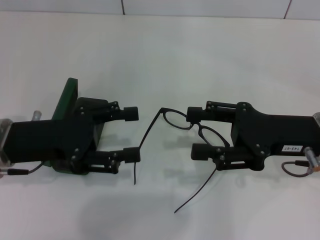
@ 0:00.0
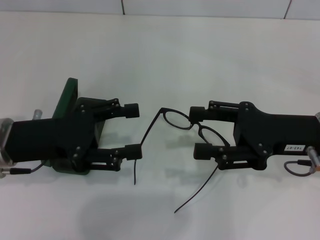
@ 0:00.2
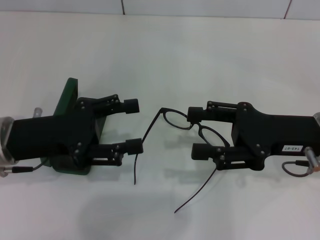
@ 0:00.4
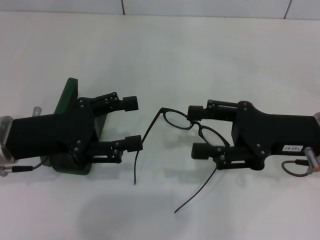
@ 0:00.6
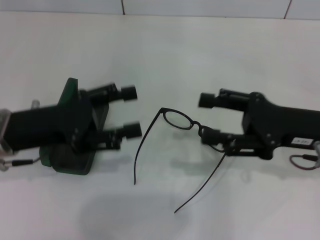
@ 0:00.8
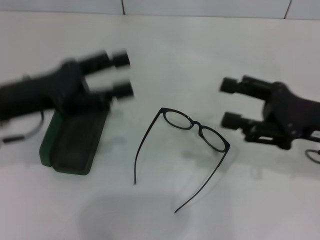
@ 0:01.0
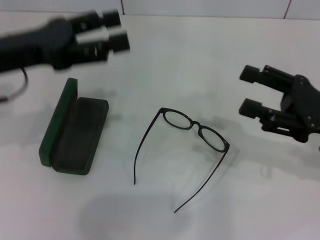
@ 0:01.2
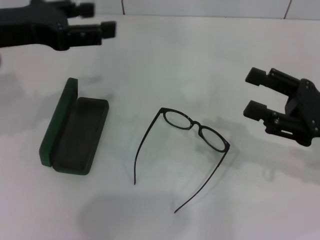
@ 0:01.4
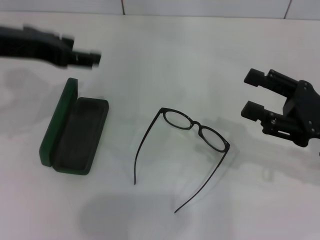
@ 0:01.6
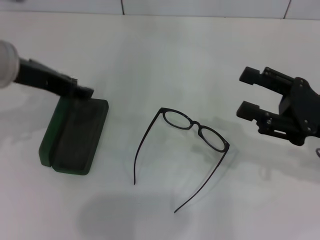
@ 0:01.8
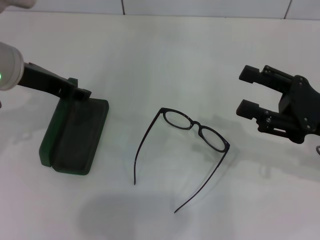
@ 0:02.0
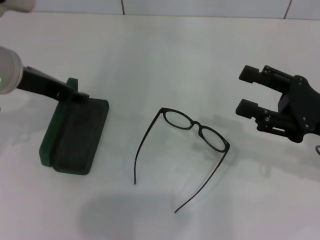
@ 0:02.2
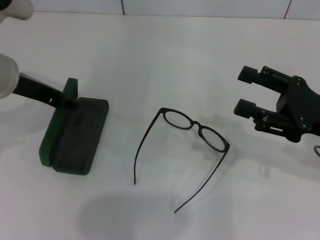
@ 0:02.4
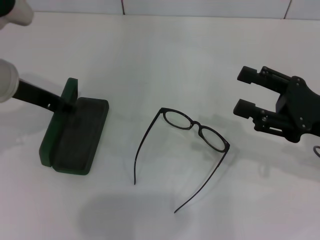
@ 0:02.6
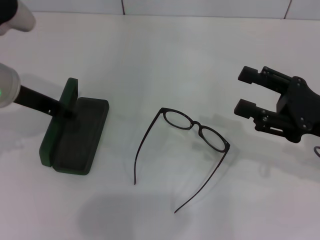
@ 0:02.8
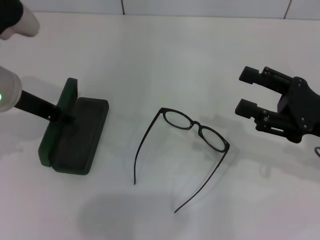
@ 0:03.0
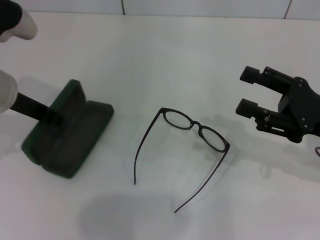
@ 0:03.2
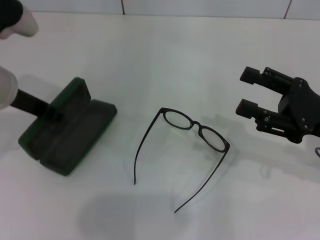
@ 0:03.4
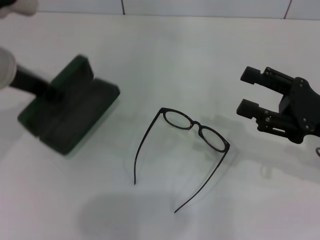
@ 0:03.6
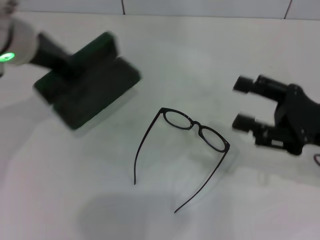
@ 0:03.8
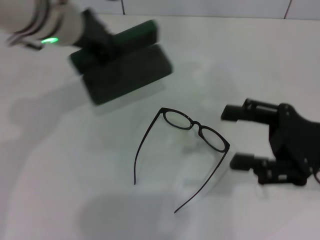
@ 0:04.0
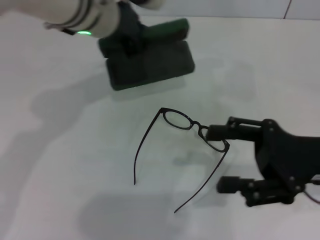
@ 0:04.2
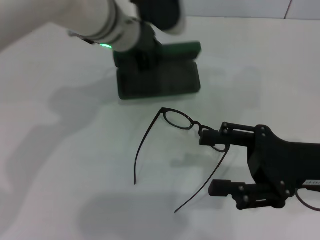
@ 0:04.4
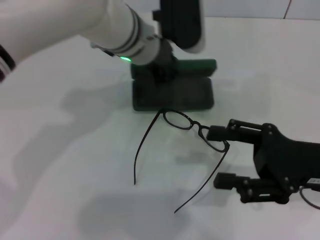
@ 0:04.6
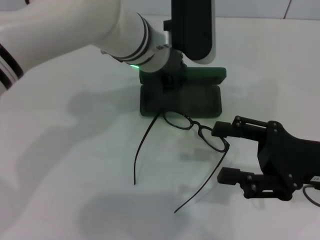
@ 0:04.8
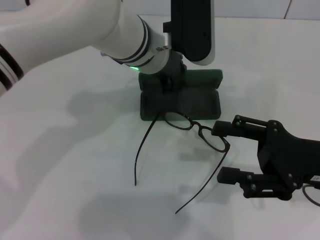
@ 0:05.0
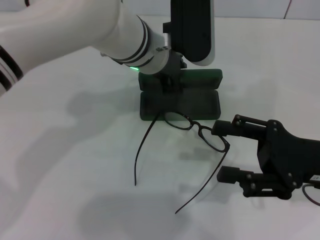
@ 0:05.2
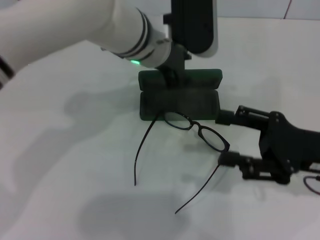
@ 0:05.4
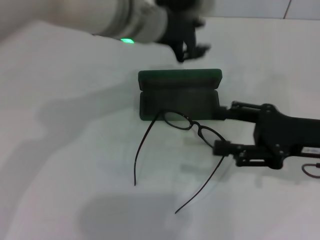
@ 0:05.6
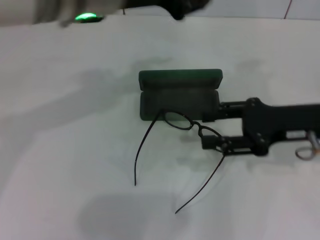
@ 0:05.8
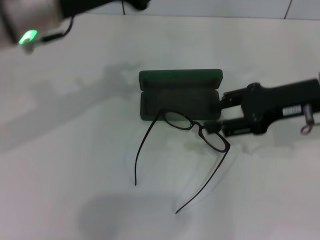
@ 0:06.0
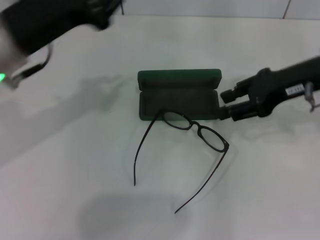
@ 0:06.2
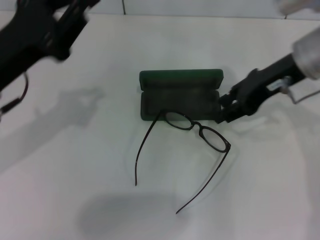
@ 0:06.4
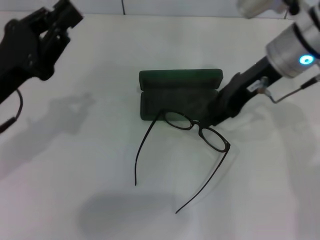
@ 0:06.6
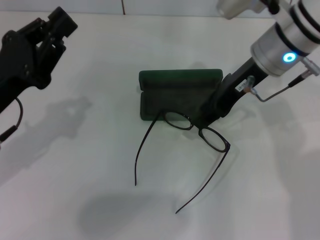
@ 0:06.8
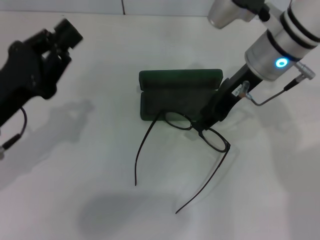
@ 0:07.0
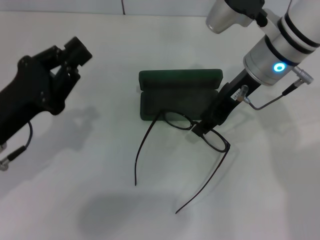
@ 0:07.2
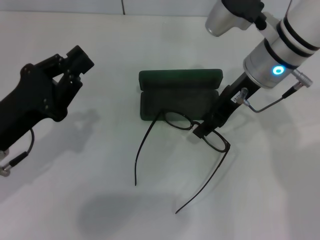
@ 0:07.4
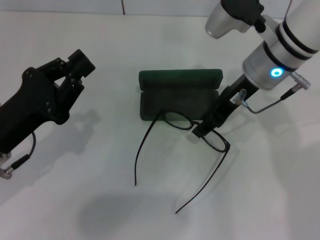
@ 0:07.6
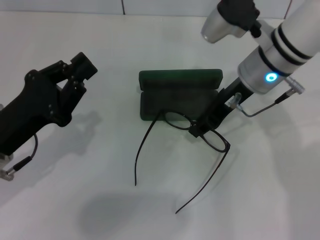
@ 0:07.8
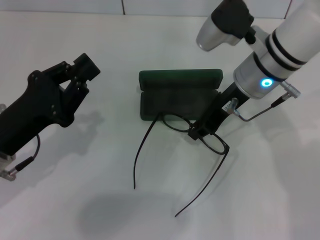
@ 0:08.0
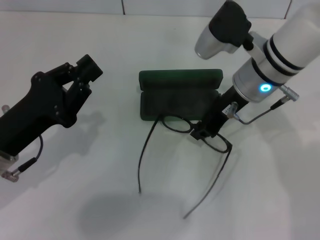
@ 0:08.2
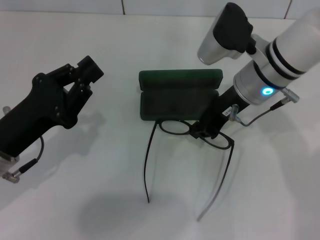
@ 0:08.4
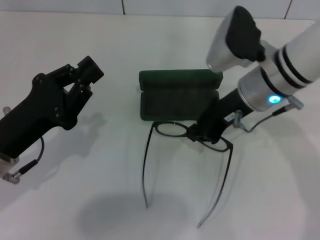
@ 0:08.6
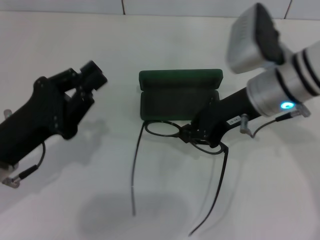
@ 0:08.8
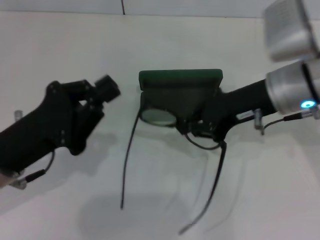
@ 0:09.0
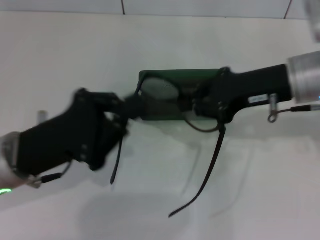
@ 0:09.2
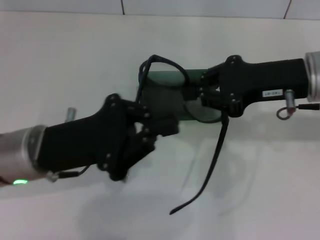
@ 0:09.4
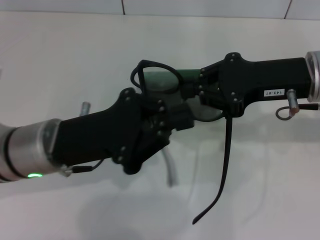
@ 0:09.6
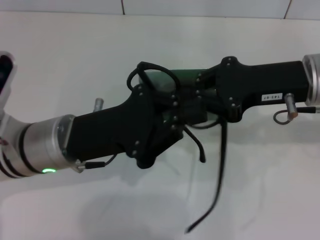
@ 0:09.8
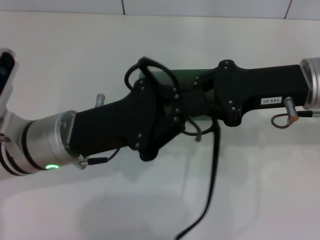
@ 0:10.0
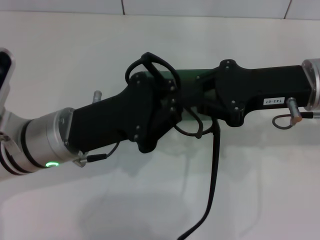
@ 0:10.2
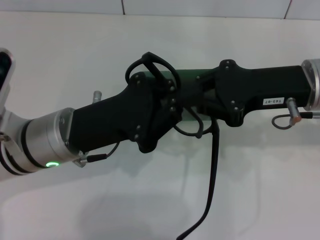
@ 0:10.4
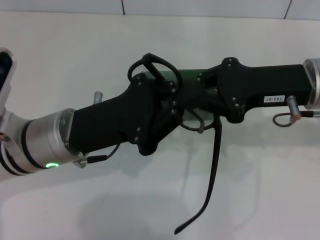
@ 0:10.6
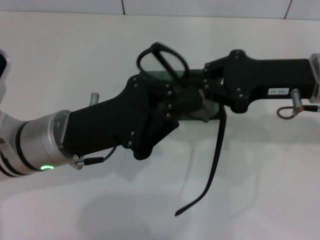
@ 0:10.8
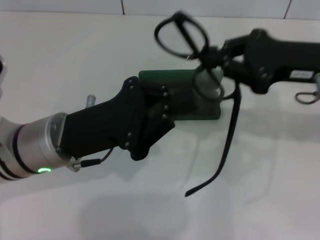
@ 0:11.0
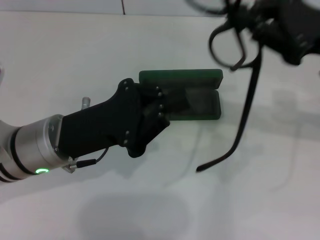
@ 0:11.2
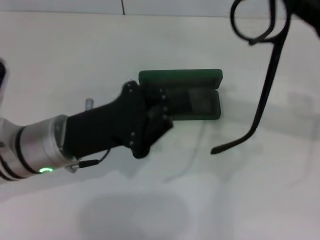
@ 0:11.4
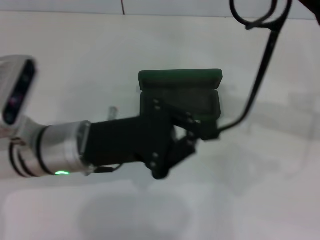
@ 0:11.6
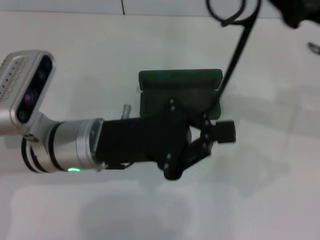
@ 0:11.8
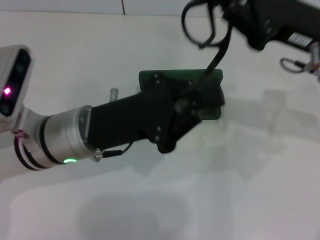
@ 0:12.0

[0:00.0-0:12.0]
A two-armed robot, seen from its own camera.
Step, 0:00.0 to 0:03.0: Grab the glasses case with your left hand.
Step, 0:03.2 to 0:05.2: Place the glasses case in the center of the table with your left hand.
Step, 0:05.4 to 0:08.2: Grab the eyeglass frame with your right hand.
0:00.0 to 0:01.6: The right gripper goes approximately 5 cm to the right, while the left gripper heads upward and forward, covering some 15 cm.
0:01.6 to 0:03.0: The left gripper is displaced downward by some 5 cm.
0:03.0 to 0:04.4: The left gripper shifts about 15 cm to the right and forward, and closes.
0:04.4 to 0:06.0: The left gripper moves to the left, backward and upward, approximately 15 cm. Meanwhile the right gripper is displaced forward and upward by about 10 cm.
0:06.0 to 0:07.6: The right gripper shifts about 10 cm to the left and forward, and closes, while the left gripper shifts about 20 cm downward, backward and to the left.
0:07.6 to 0:09.0: The right gripper shifts approximately 5 cm backward, and closes its fingers.
0:09.0 to 0:10.4: The left gripper shifts about 5 cm to the right.

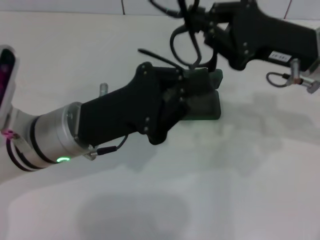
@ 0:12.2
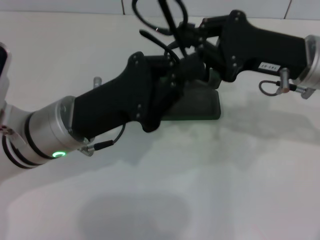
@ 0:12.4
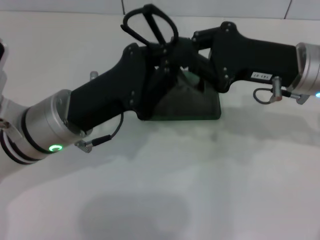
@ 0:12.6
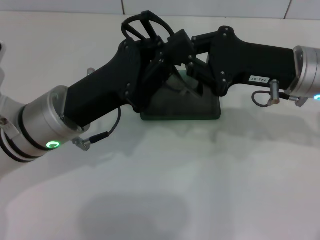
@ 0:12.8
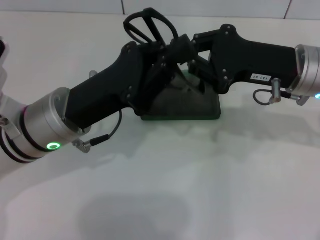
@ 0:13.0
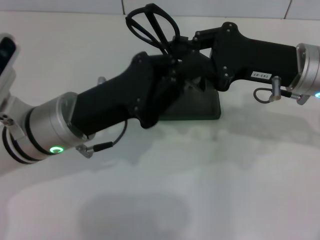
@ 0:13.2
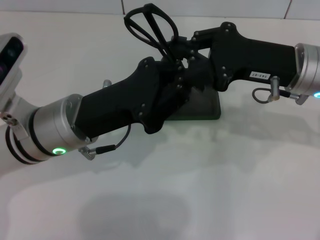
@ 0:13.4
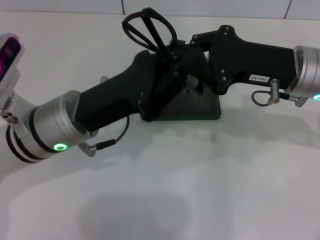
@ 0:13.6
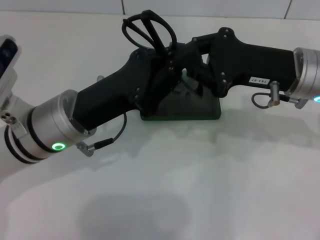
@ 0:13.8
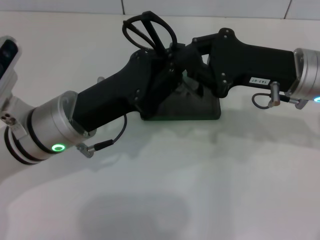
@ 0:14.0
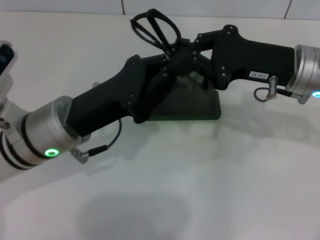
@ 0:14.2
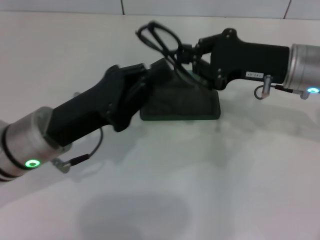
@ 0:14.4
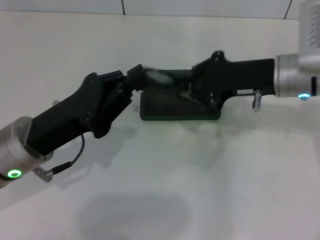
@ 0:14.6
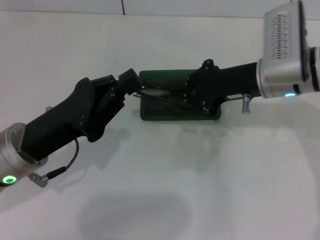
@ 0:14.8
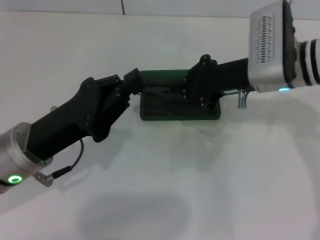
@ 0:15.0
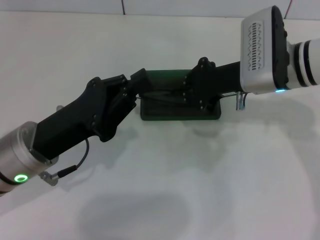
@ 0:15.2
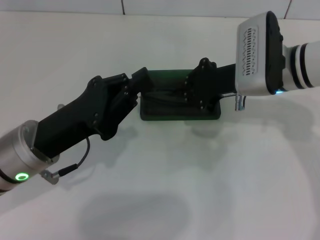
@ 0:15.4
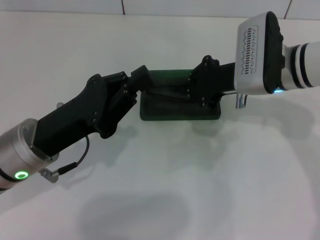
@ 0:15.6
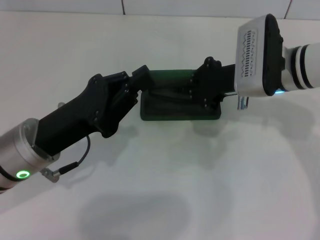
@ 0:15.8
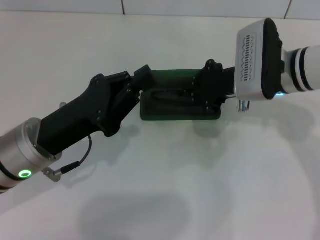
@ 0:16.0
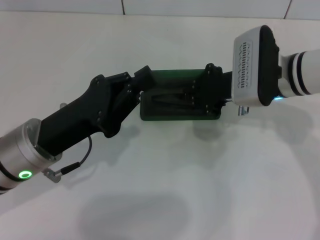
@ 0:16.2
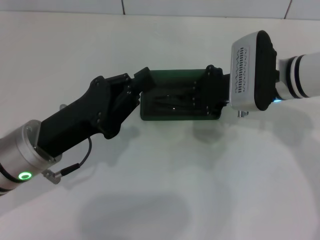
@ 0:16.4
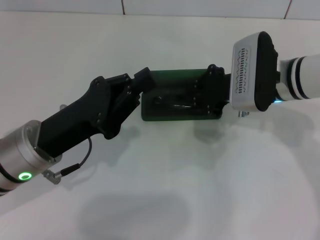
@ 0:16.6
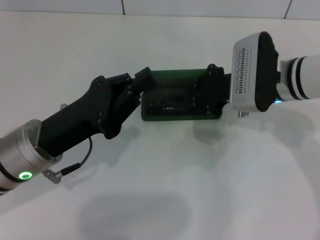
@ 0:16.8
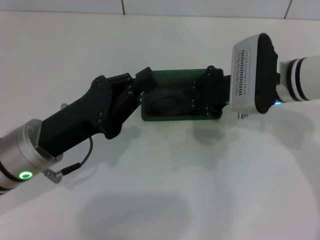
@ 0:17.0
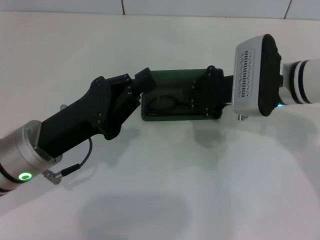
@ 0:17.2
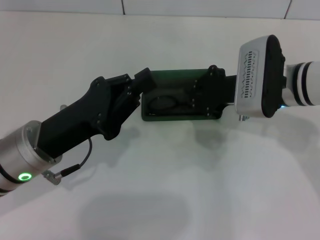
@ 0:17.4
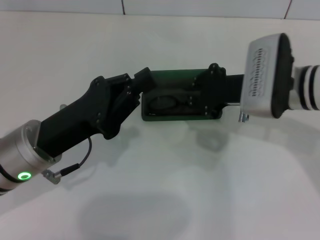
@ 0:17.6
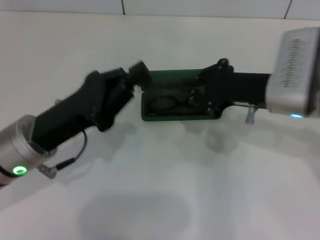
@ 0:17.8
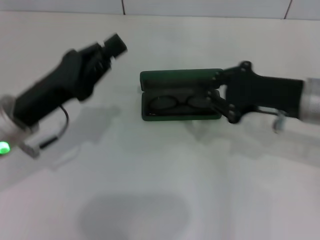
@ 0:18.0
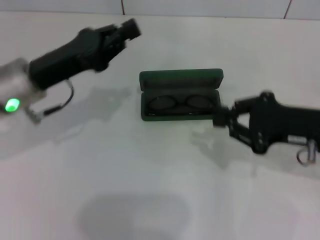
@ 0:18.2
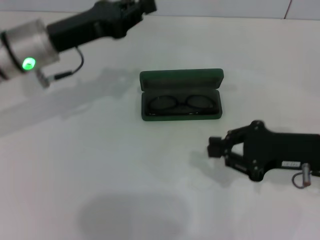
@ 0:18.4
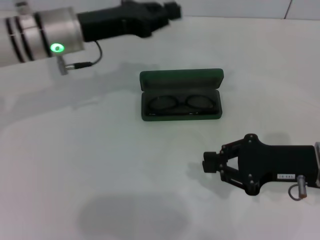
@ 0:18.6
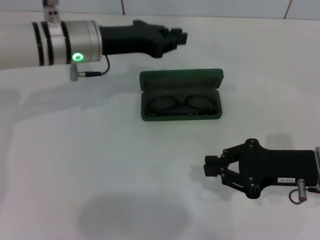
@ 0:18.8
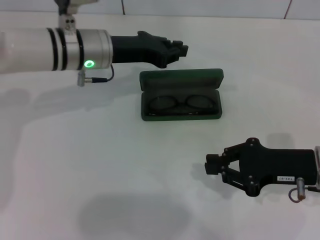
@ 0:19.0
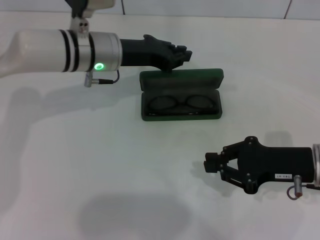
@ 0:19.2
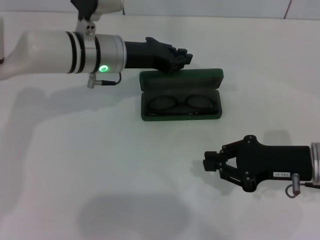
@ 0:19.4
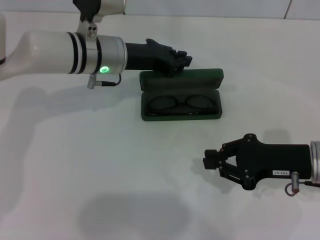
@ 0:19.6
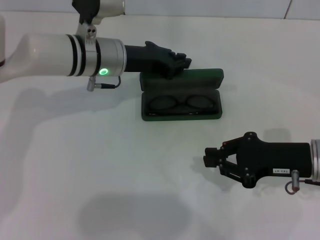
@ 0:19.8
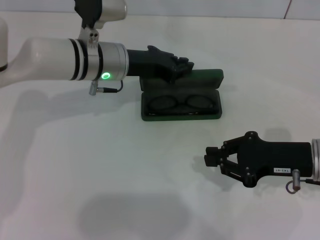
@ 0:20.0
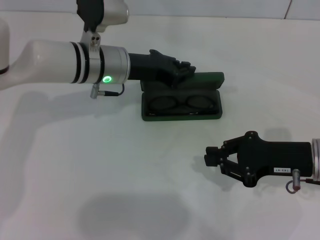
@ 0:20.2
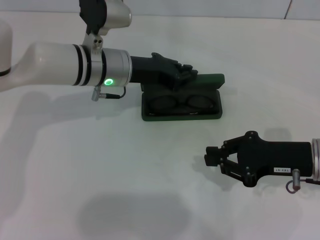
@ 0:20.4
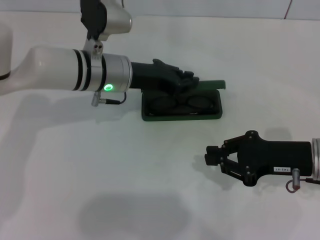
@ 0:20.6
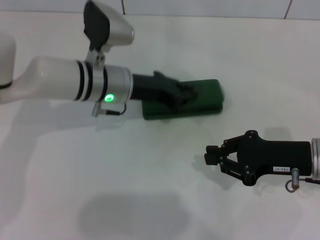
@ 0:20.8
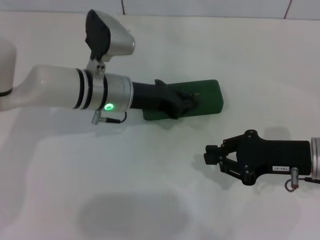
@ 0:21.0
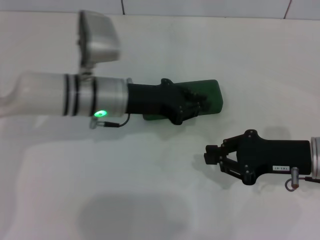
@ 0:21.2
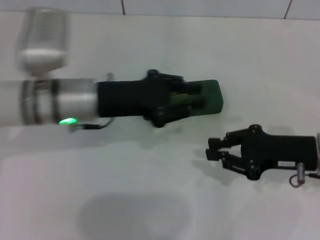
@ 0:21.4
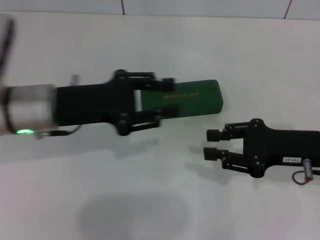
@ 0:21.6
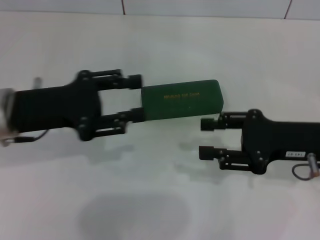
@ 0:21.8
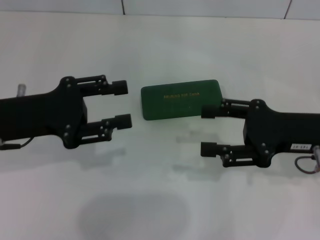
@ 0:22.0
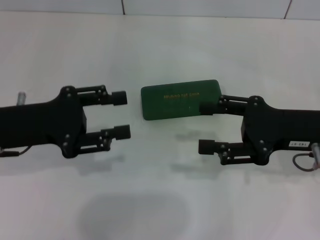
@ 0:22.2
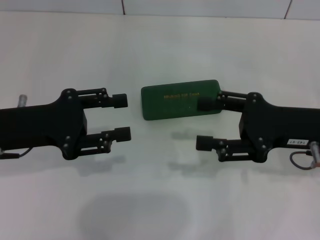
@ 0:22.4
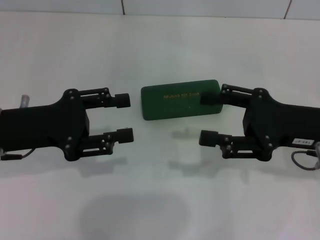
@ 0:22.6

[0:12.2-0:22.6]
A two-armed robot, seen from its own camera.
Step, 0:14.2 to 0:17.4: Put the glasses into the case with your right hand.
Step, 0:17.6 to 0:21.0: Close the glasses case with your left hand.
0:13.6 to 0:15.2: The right gripper moves about 5 cm. The left gripper ends up roughly 5 cm from where it was.
0:15.2 to 0:16.6: The grippers stay close to where they were, moving slightly.
0:16.6 to 0:18.2: The left gripper travels forward by about 5 cm; the right gripper travels to the right and backward by about 15 cm.
0:18.2 to 0:19.6: The left gripper heads forward and to the right, covering some 15 cm; the right gripper moves about 5 cm.
0:19.6 to 0:21.2: The left gripper moves backward, roughly 5 cm.
0:21.2 to 0:22.6: The left gripper is displaced to the left and backward by roughly 15 cm, and opens up. Meanwhile the right gripper moves upward, roughly 5 cm, and opens its fingers.
